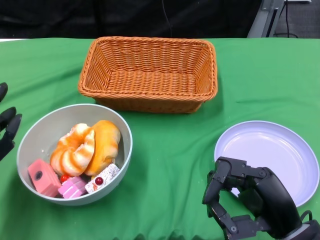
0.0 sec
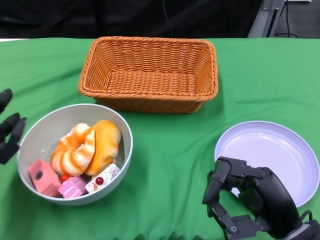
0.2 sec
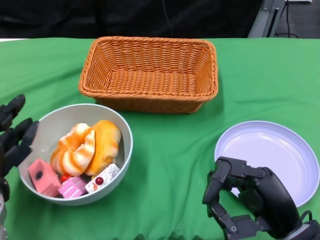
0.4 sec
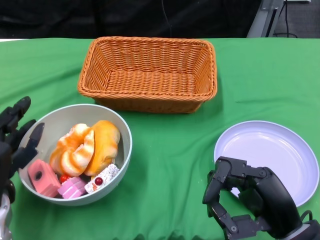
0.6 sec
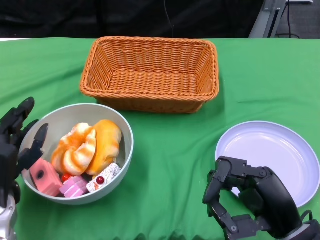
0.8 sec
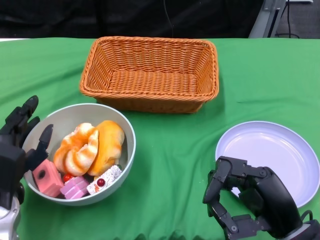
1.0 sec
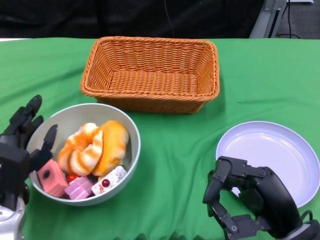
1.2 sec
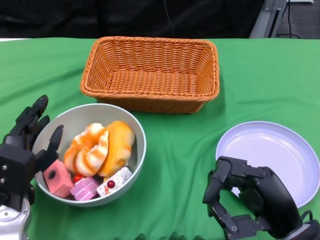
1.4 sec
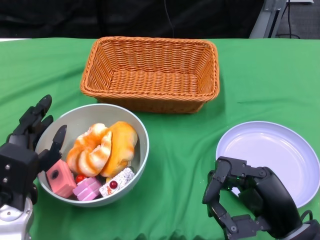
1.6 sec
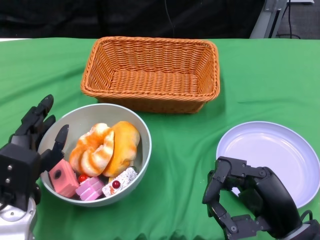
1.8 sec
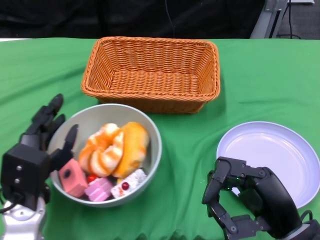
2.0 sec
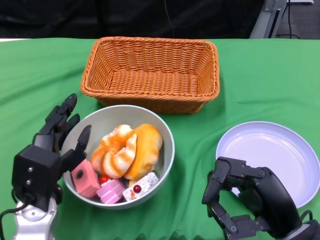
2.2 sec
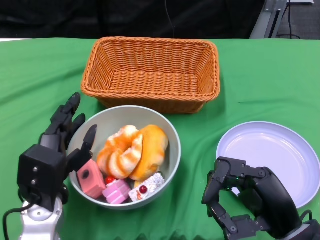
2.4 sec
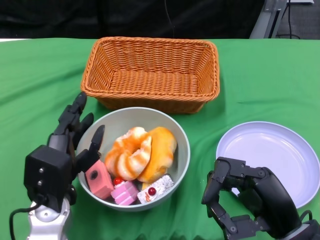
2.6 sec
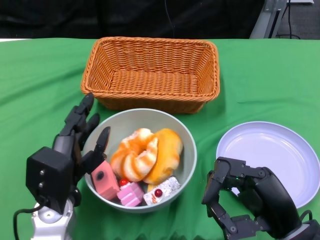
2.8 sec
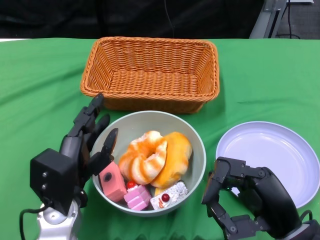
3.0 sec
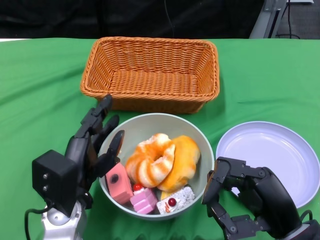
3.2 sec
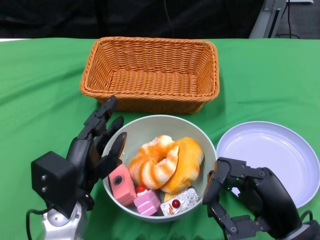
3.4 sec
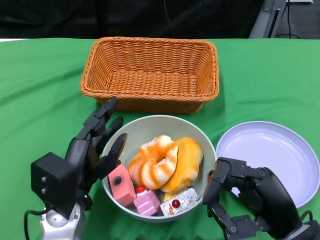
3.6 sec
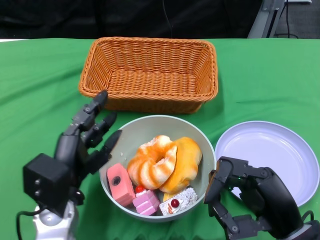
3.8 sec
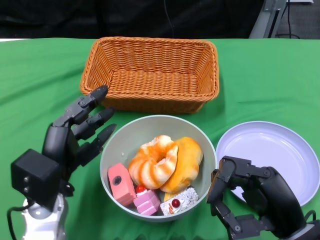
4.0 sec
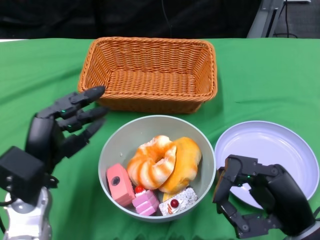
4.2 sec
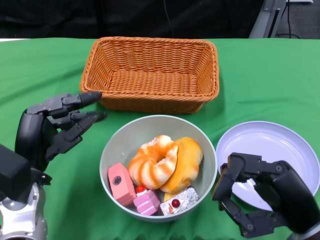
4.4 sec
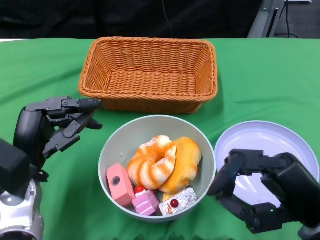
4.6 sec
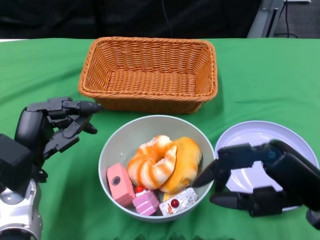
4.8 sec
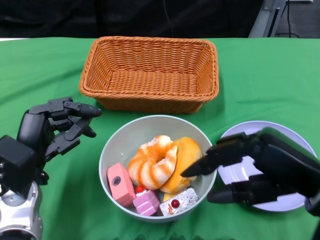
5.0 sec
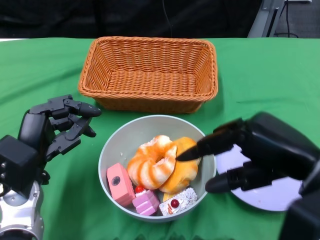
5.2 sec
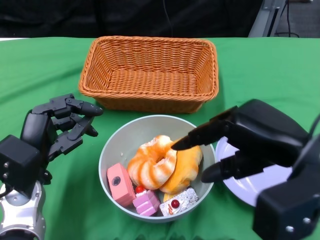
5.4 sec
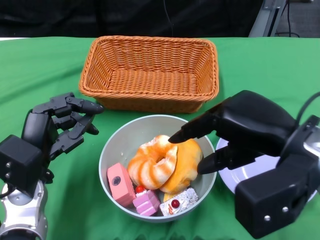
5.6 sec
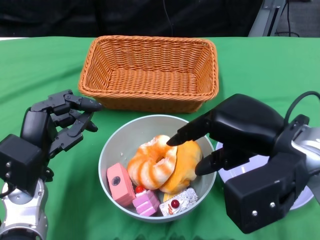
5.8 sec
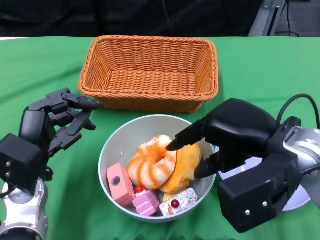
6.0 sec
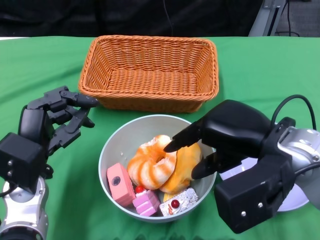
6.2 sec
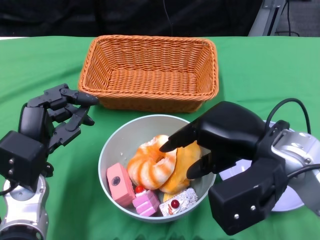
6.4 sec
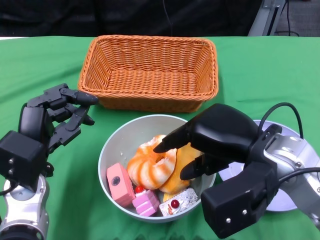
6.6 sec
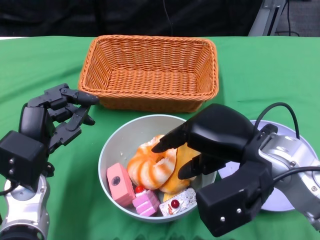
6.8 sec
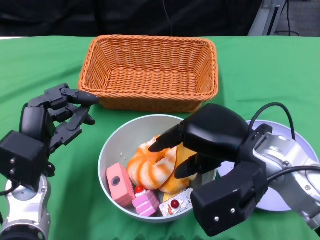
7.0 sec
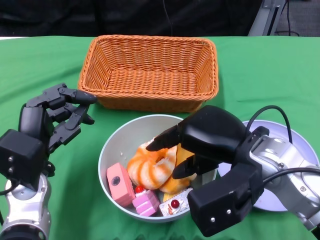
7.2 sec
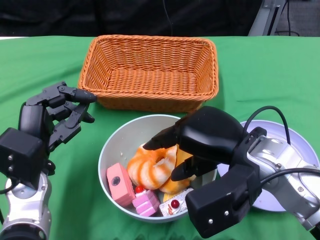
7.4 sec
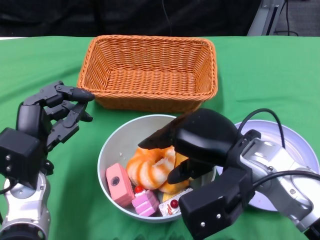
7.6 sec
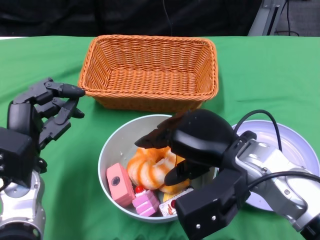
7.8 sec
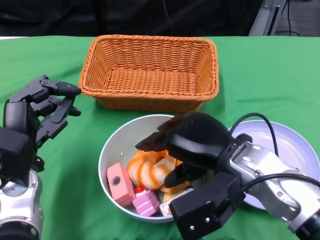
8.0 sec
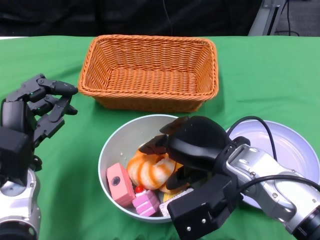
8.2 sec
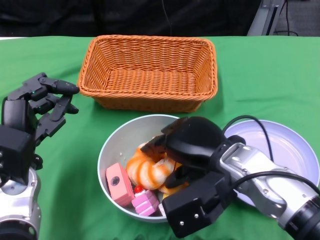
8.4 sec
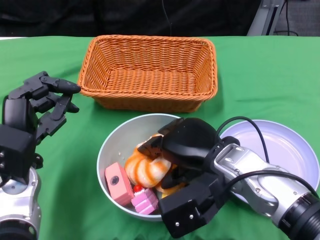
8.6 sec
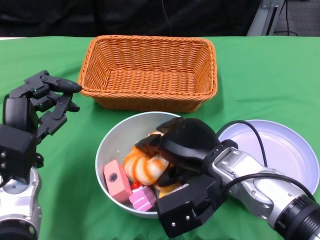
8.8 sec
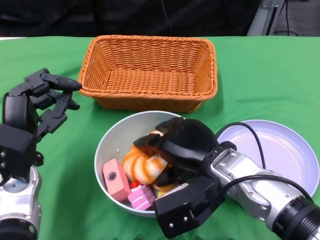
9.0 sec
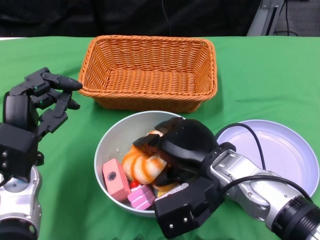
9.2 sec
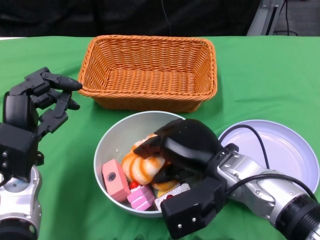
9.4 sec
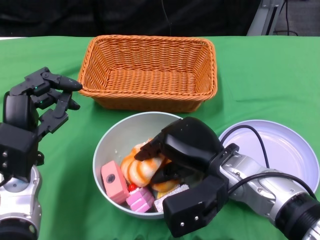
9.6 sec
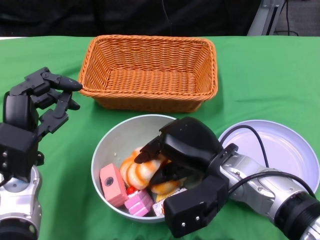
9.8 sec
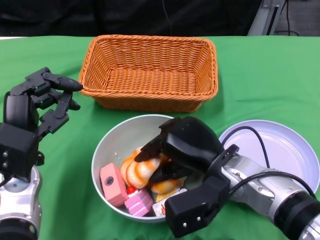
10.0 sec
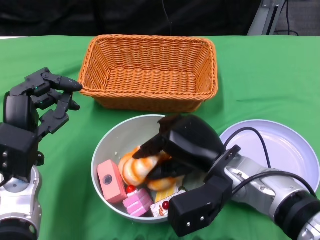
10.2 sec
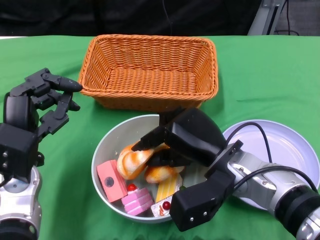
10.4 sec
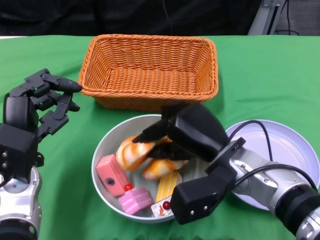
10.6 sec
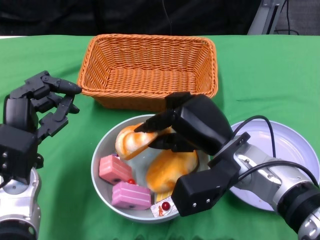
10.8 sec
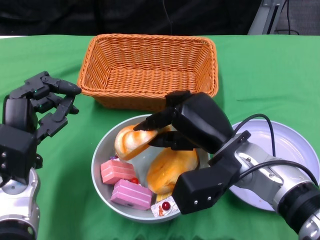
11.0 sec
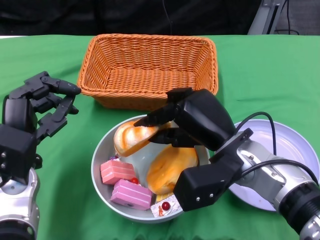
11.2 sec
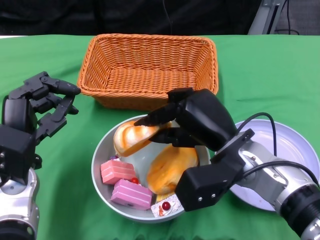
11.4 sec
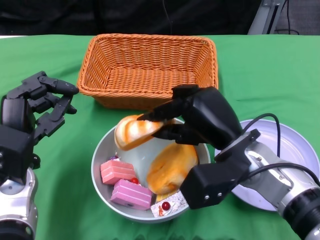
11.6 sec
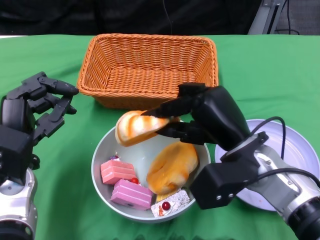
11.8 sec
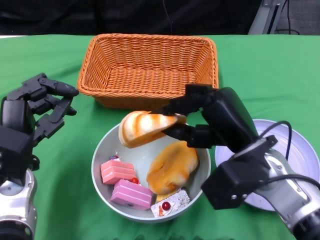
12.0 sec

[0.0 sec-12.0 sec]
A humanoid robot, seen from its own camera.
Step, 0.0 sec to 3.6 sec: Push the bowl to the center of the table using the left gripper.
0.0 sec to 1.6 sec: The left hand is displaced to the right by some 5 cm.
1.6 sec to 3.0 sec: The left hand moves to the right, roughly 5 cm.
3.0 sec to 4.4 sec: The left hand goes about 5 cm to the left.
4.4 sec to 6.0 sec: The right hand is displaced upward and forward by about 10 cm.
6.0 sec to 7.6 sec: The right hand ends up about 5 cm from where it was.
7.6 sec to 9.0 sec: The right hand moves roughly 5 cm.

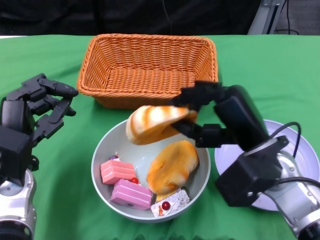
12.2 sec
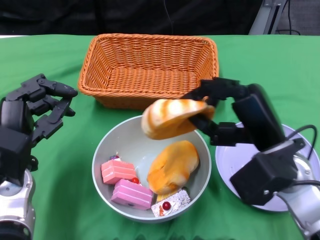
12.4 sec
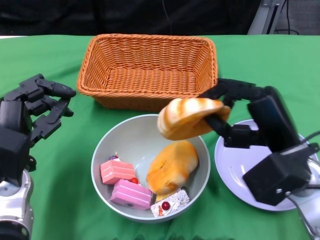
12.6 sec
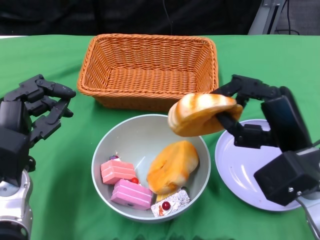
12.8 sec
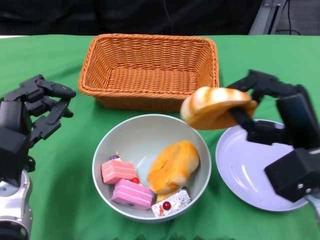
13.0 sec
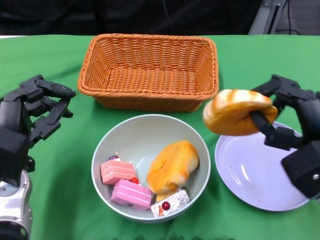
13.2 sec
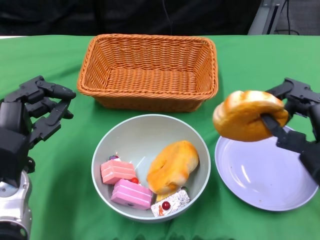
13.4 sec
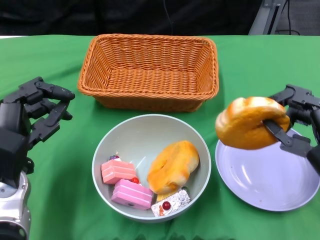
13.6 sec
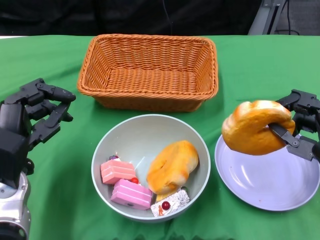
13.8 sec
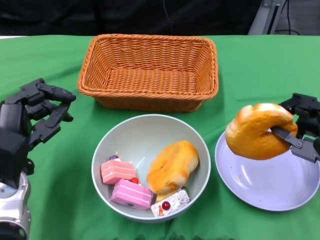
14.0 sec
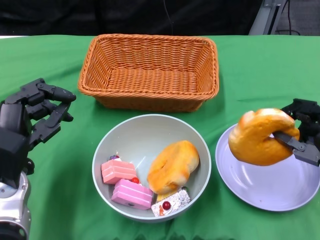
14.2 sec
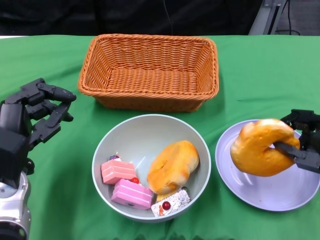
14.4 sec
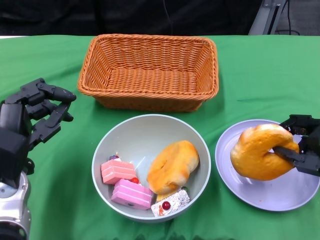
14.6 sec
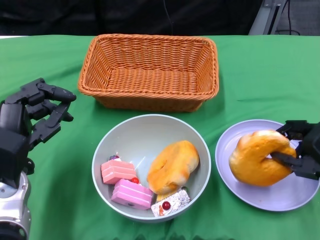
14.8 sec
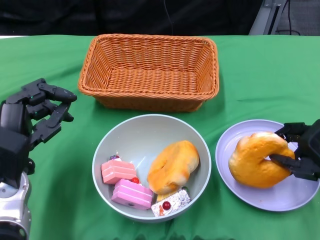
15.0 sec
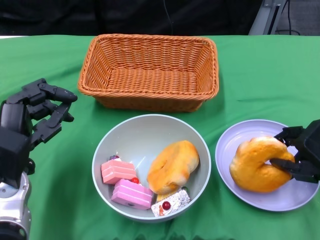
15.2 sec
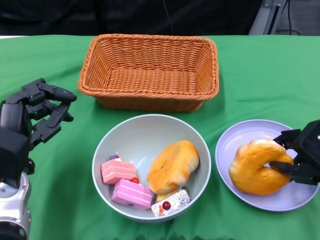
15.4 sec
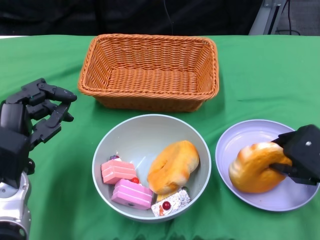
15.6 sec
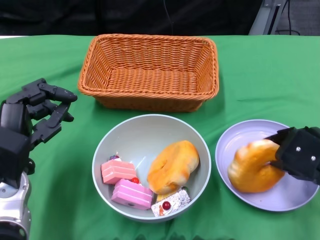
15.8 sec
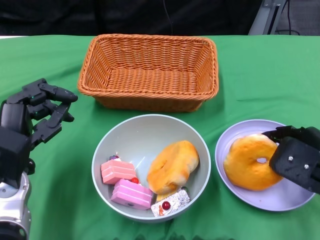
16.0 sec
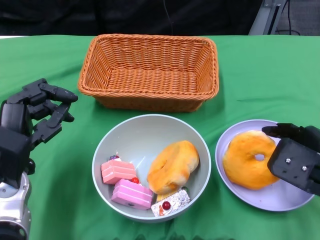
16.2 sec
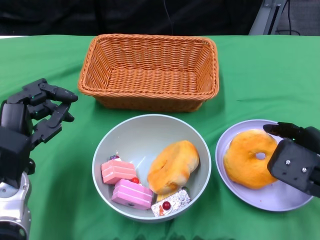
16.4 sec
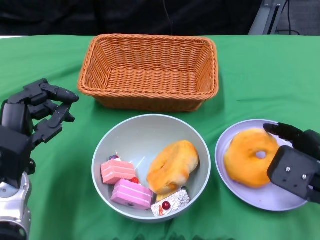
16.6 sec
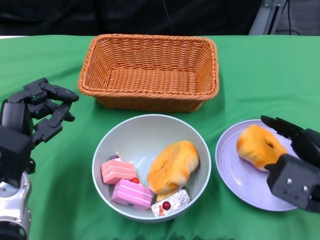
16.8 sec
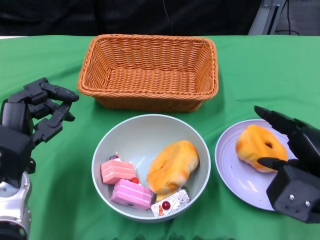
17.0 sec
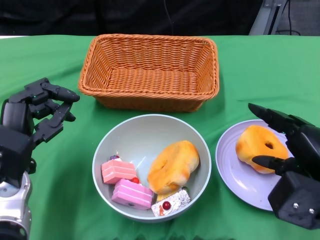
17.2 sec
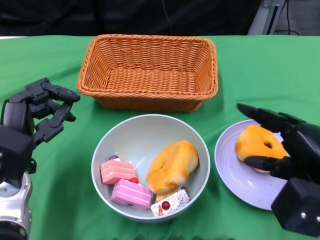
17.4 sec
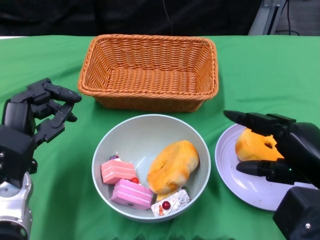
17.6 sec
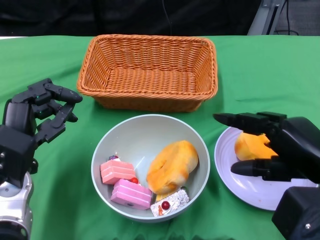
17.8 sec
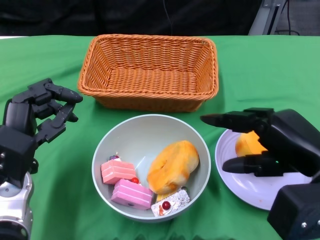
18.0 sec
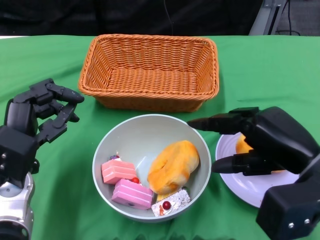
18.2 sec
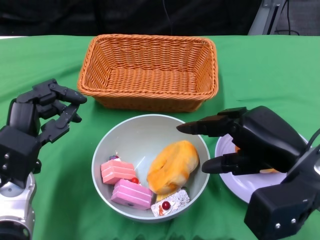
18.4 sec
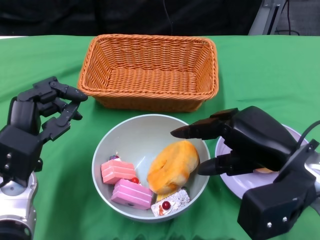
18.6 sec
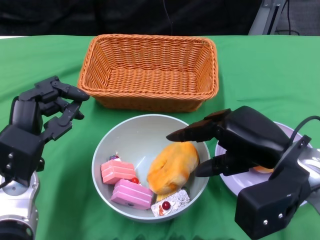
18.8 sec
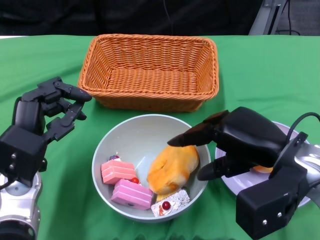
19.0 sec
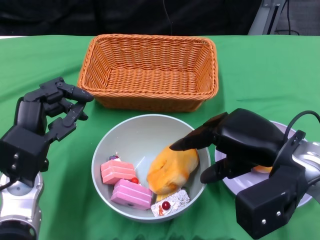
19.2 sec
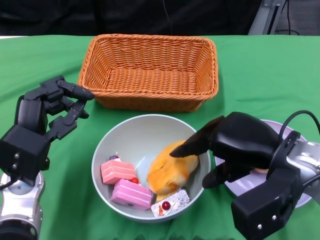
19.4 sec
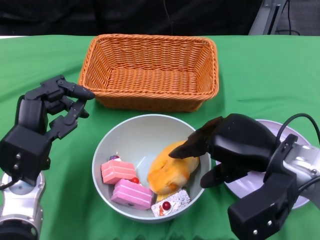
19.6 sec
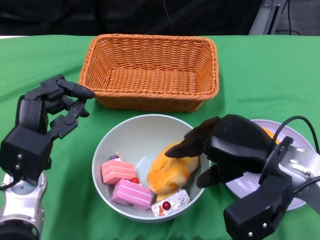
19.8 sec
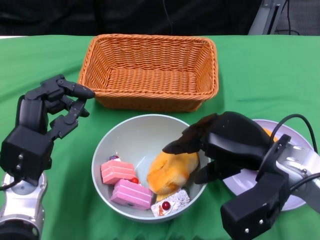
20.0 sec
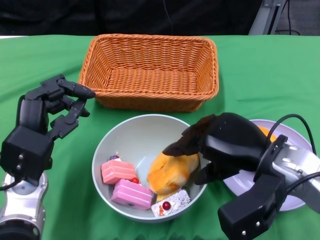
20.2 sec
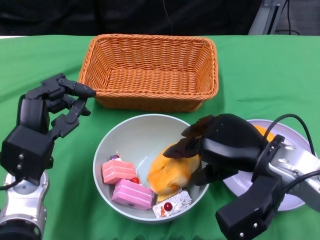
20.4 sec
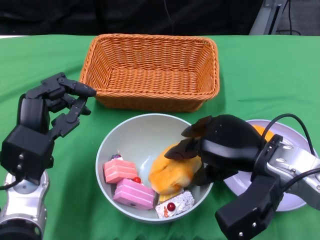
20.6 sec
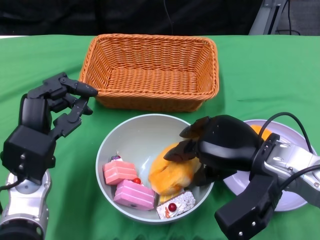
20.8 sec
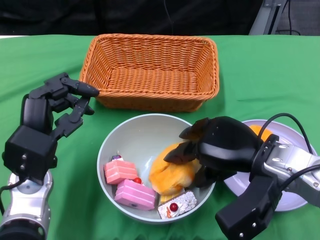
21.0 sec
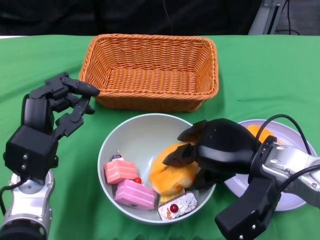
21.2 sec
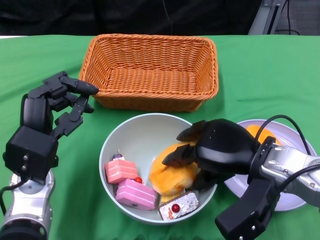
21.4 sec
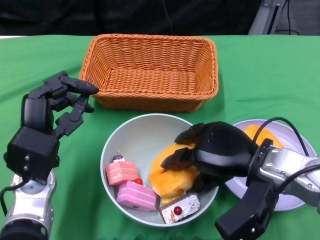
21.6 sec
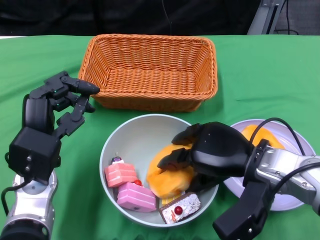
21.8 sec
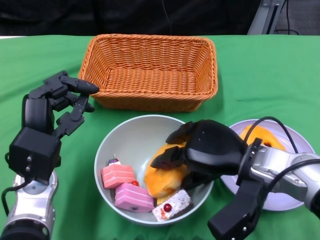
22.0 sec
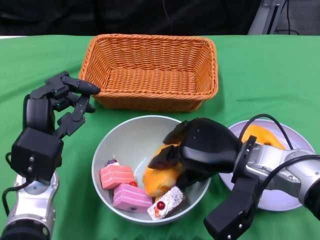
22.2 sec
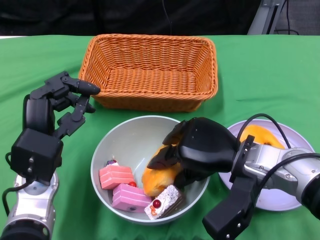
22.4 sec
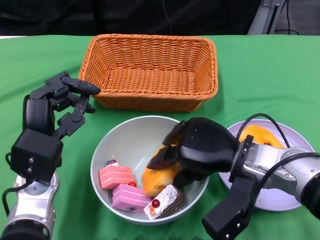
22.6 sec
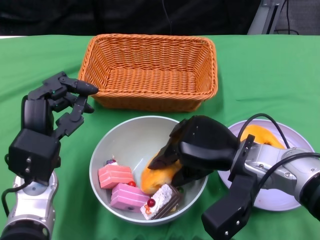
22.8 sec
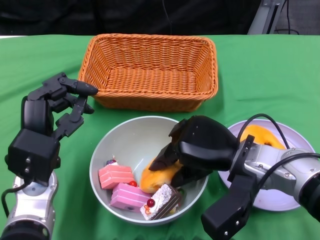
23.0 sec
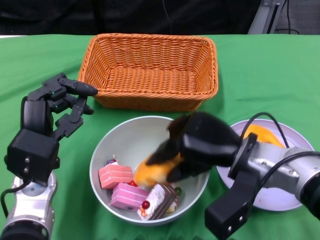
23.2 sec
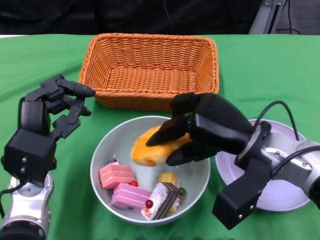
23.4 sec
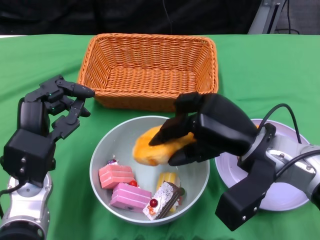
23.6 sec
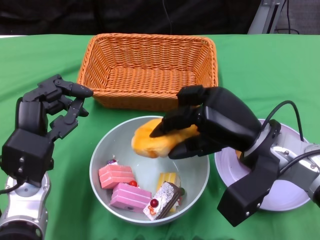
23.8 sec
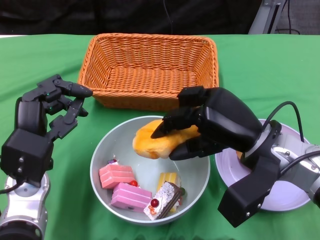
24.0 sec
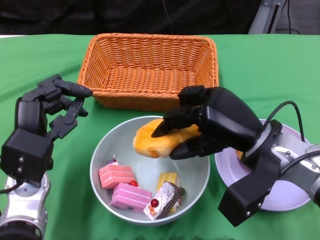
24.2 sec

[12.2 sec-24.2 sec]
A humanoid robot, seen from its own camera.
12.2 sec to 13.8 sec: The right hand heads to the right, covering some 10 cm.
16.6 sec to 18.2 sec: The right hand shifts by some 5 cm.
18.2 sec to 19.8 sec: The right hand moves about 5 cm.
